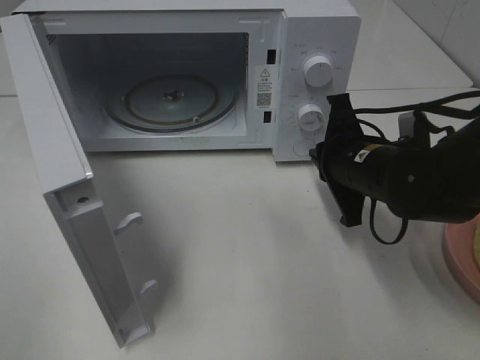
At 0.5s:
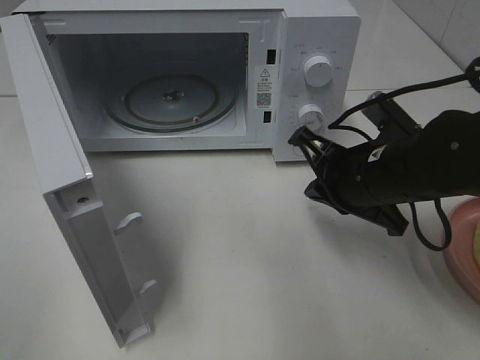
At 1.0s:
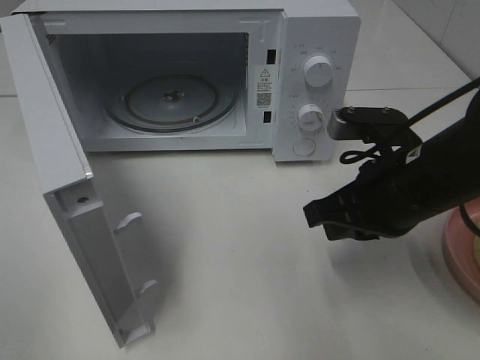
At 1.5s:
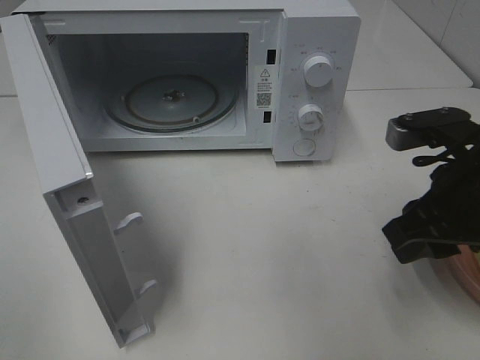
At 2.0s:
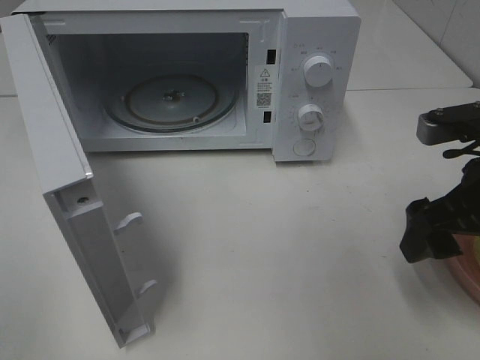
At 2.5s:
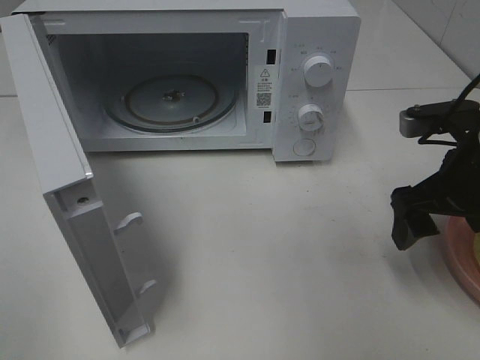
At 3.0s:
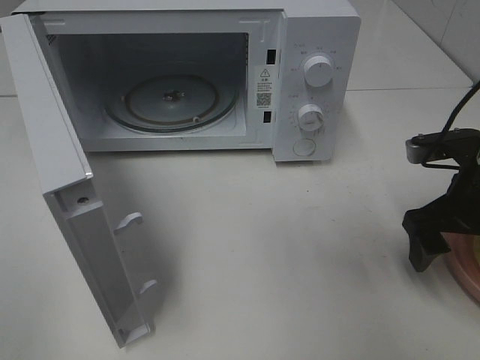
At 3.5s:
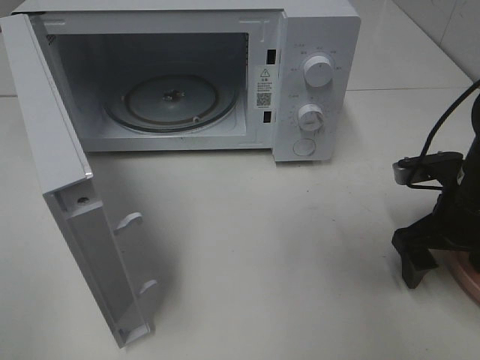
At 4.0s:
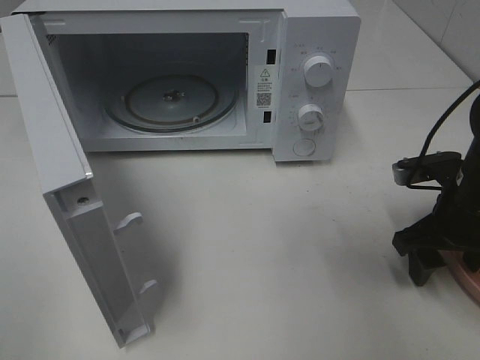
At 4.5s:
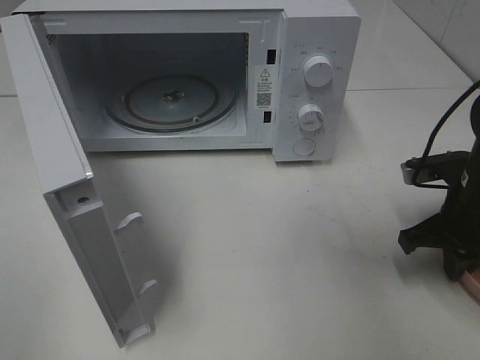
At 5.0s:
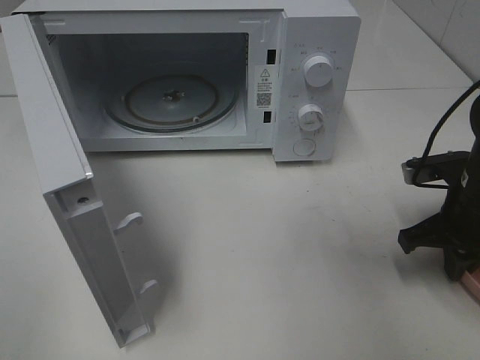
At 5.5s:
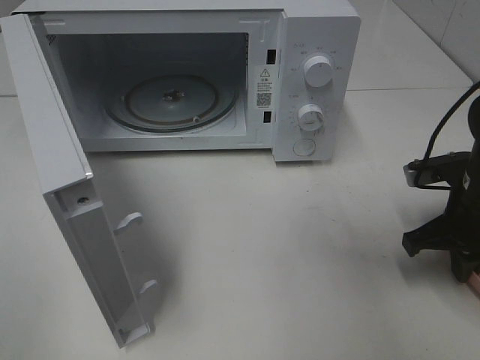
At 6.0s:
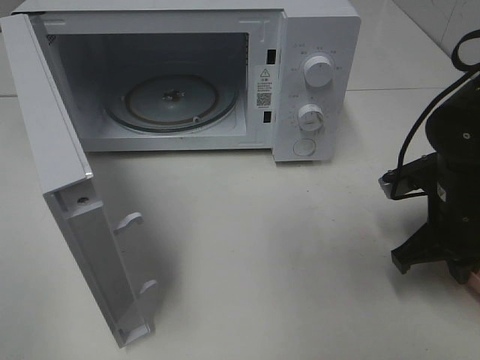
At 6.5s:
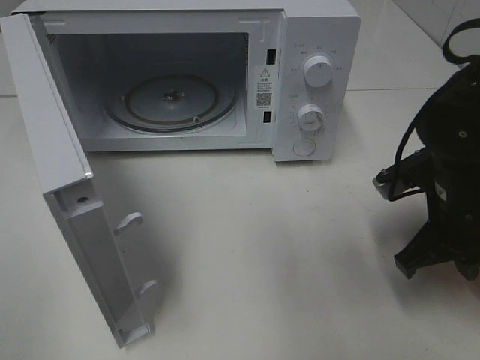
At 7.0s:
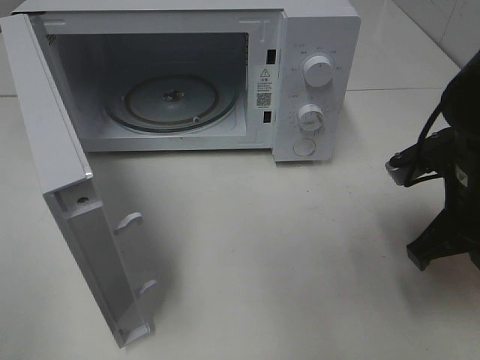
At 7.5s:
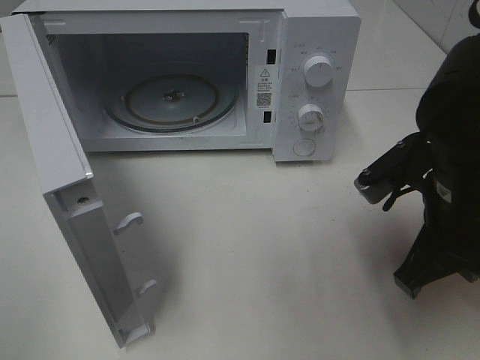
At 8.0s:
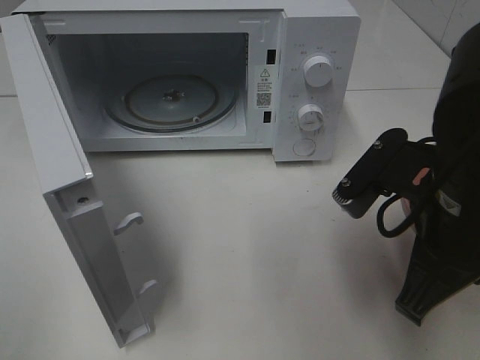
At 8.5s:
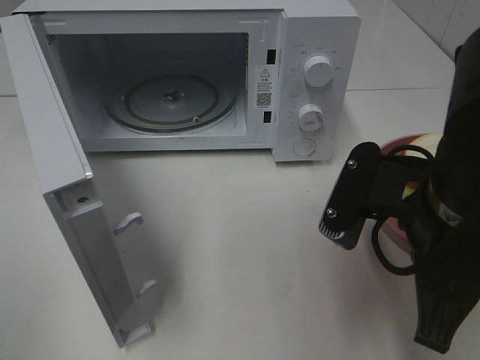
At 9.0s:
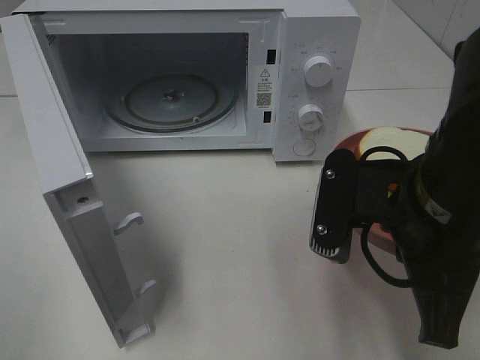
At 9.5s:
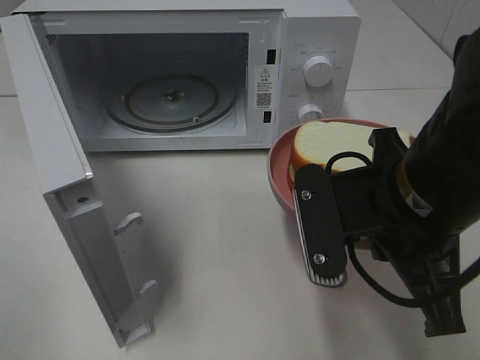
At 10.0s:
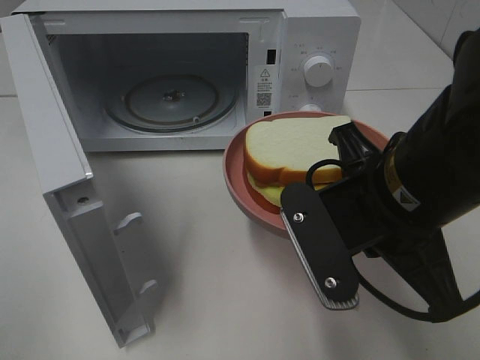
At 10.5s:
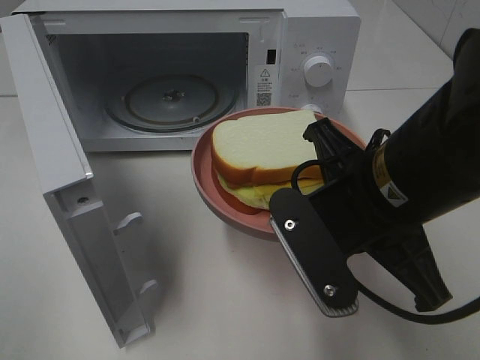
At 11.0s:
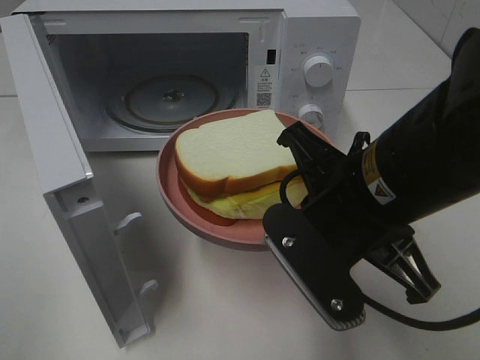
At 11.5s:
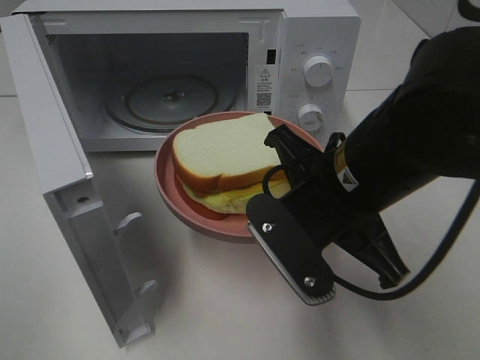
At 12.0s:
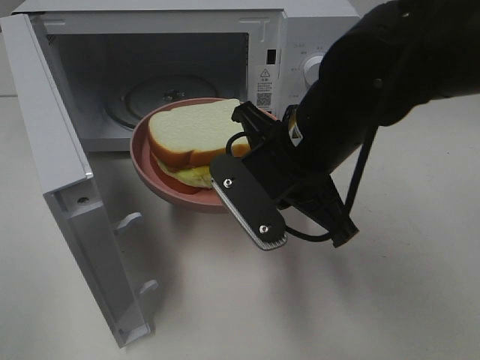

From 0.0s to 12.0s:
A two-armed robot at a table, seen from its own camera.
Task of the whole recording: Heat Sandwich.
Step, from 0.0s to 5.0s: Right hand: grab the plate with the sandwich.
From 0.0s to 2.0s: The right gripper shifts approximately 15 cm to the right, backward and upward, and opens its fingers.
From 2.0s to 4.0s: The right gripper shifts some 10 cm downward and forward.
From 4.0s to 6.0s: The right gripper closes.
From 6.0s to 8.0s: The right gripper travels upward, backward and to the left by about 15 cm.
From 10.0s to 12.0s: The right gripper travels forward and to the left by about 10 cm.

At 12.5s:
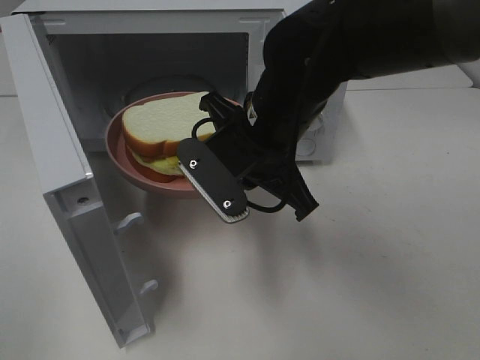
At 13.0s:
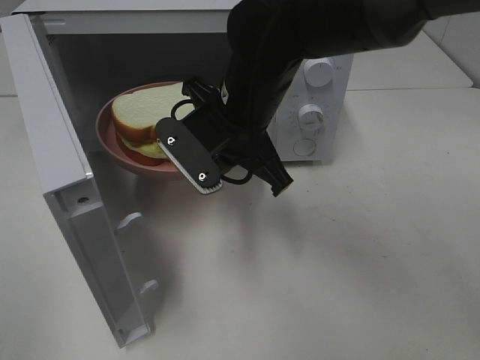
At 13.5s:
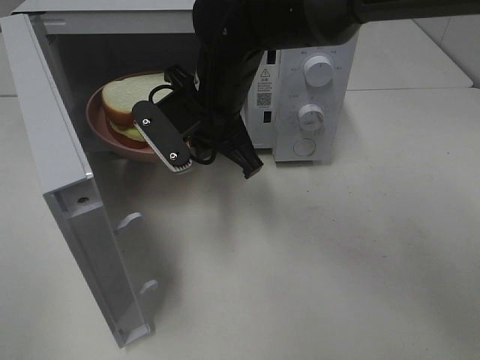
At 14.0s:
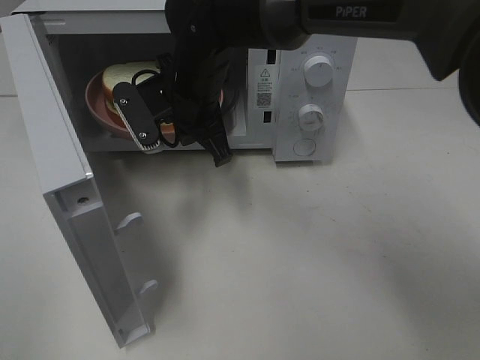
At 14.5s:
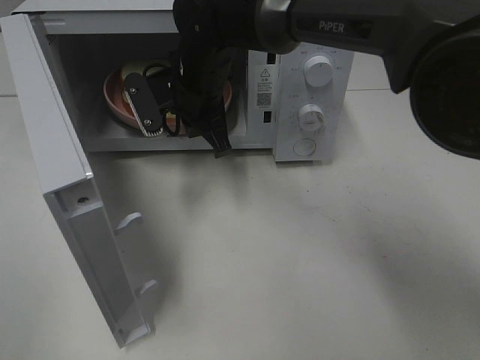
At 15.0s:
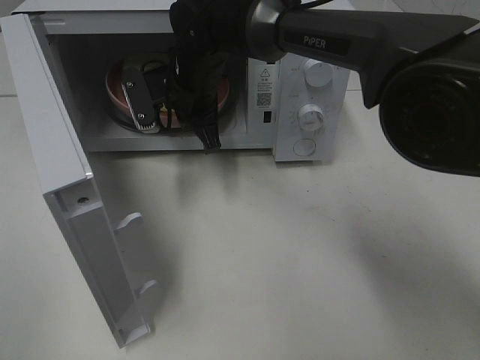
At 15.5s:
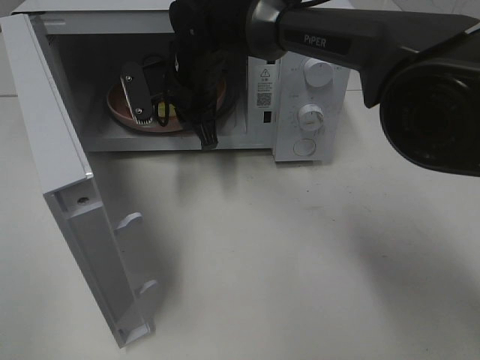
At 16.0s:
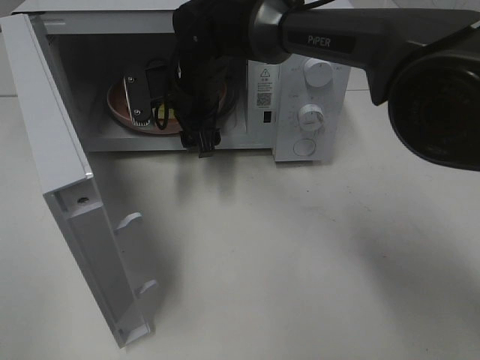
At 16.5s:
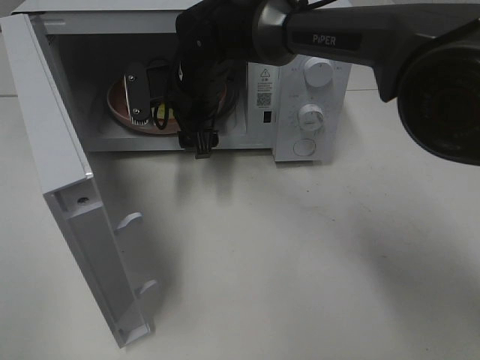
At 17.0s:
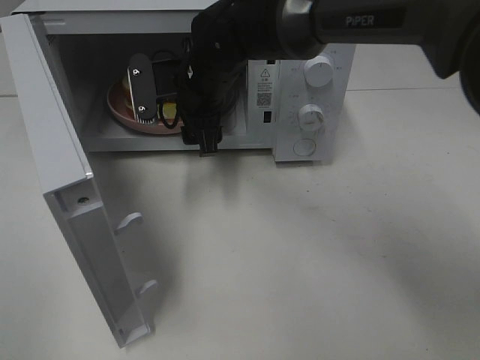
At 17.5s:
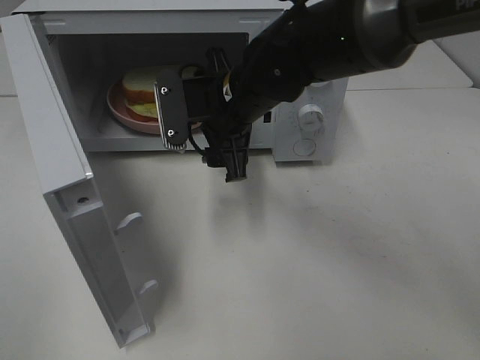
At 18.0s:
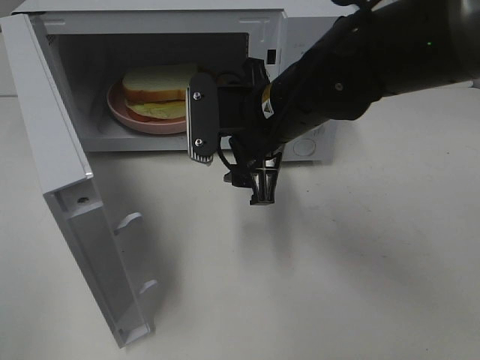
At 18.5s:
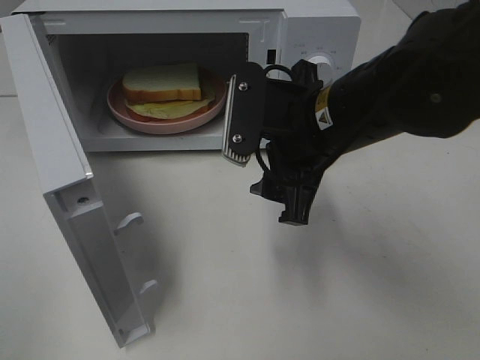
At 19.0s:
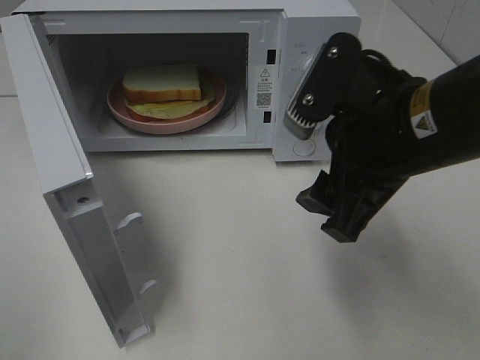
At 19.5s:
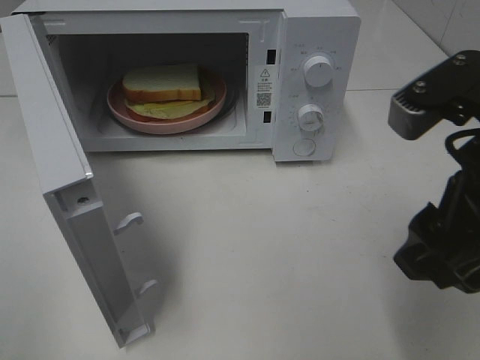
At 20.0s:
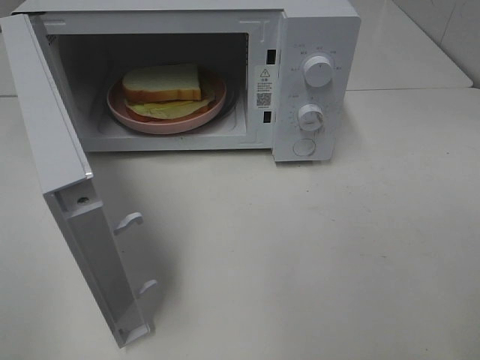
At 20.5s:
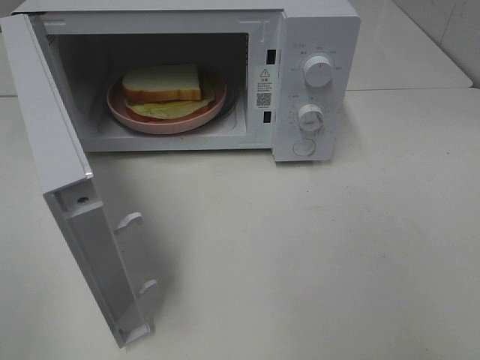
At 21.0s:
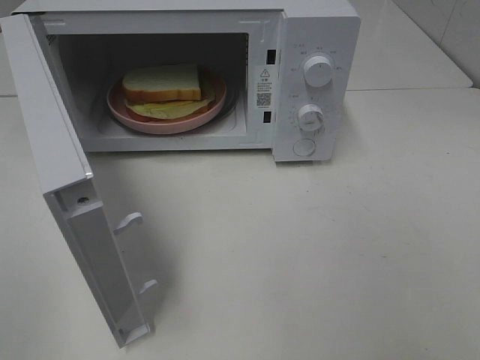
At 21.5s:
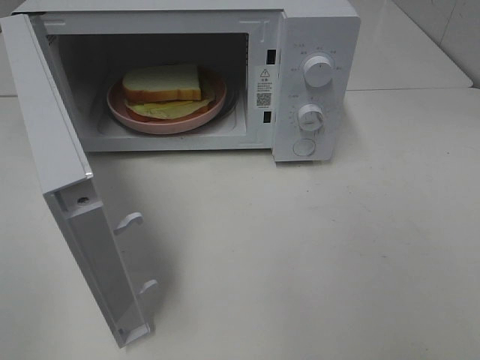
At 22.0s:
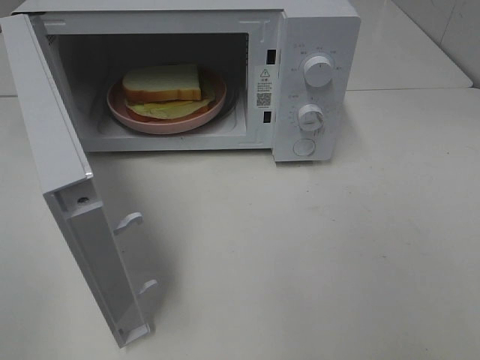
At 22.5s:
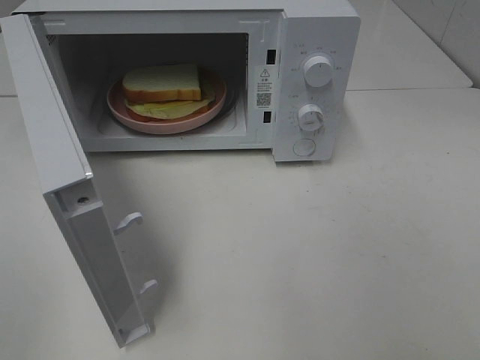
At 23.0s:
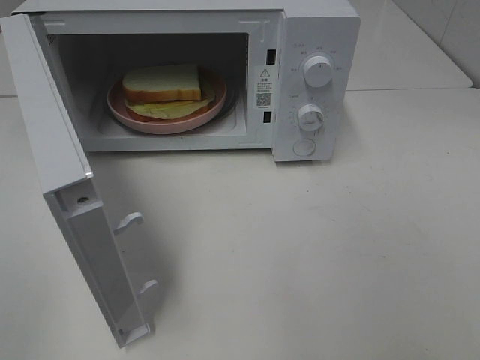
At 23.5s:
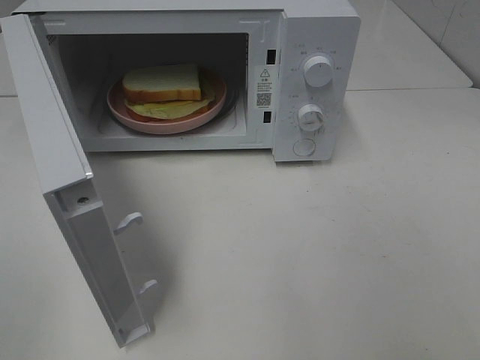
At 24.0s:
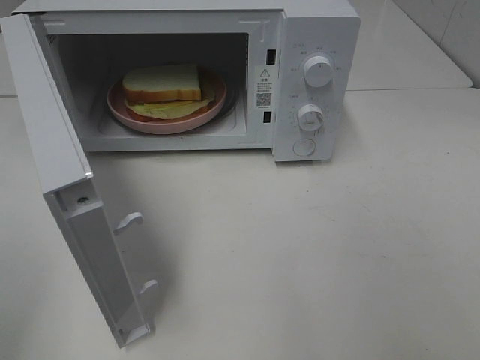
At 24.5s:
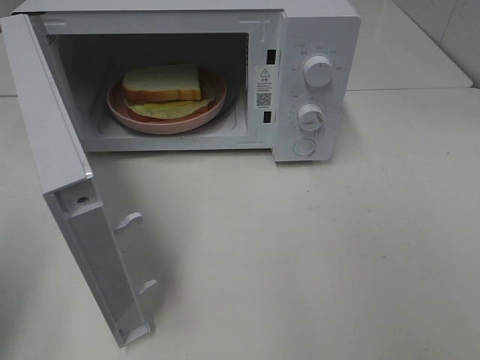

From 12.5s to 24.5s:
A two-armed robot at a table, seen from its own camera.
Task of the whole recording: Heat Sandwich.
Step, from 12.5s to 17.0s: Right hand: place the plate in the microwave.
From 12.5s to 14.5s: The right gripper heads forward and to the left, covering roughly 15 cm.
From 14.5s to 16.5s: The right gripper opens.
From 16.5s to 18.5s: The right gripper shifts about 20 cm backward and to the right.
From 18.5s to 20.5s: The right gripper moves backward, to the right and upward, roughly 30 cm.

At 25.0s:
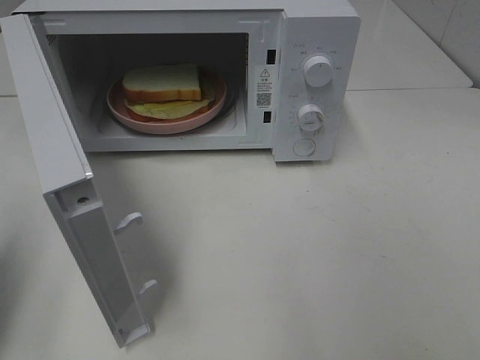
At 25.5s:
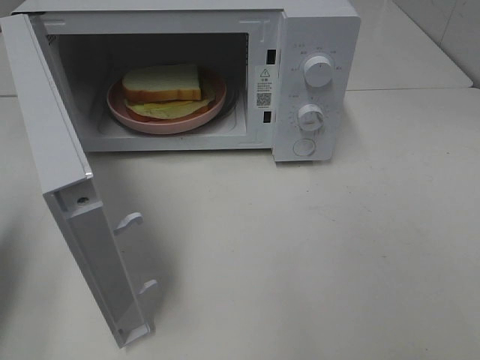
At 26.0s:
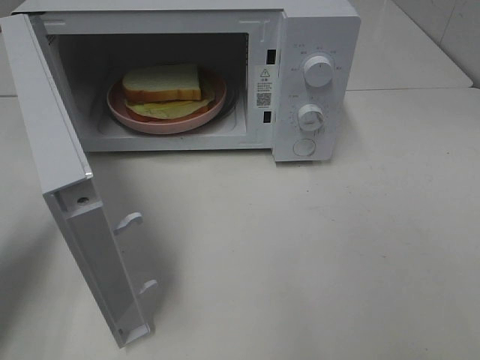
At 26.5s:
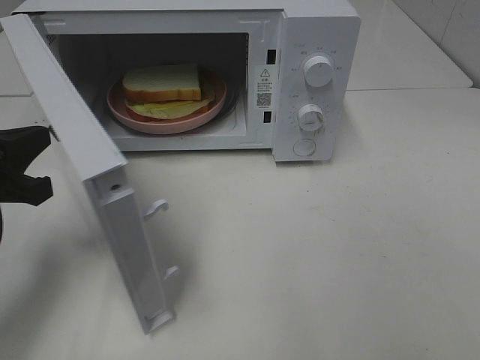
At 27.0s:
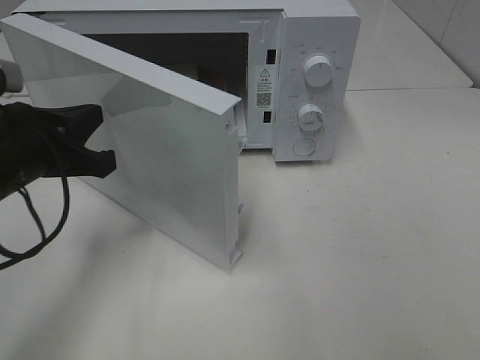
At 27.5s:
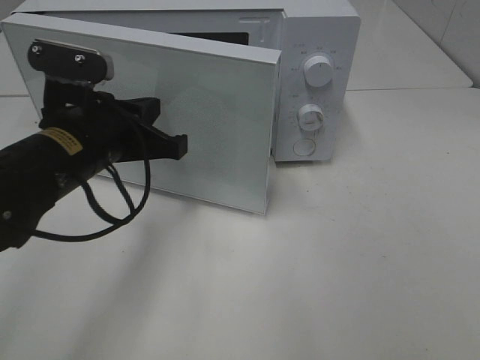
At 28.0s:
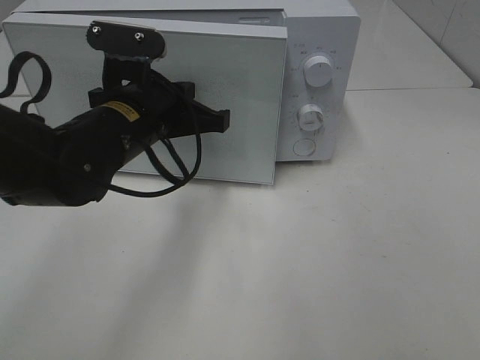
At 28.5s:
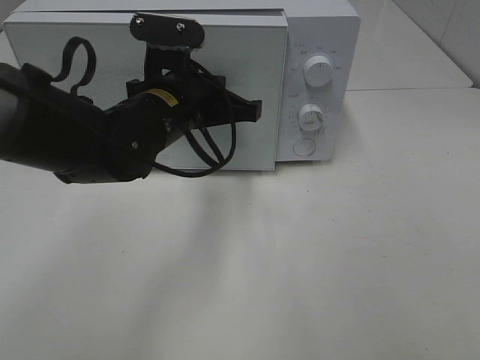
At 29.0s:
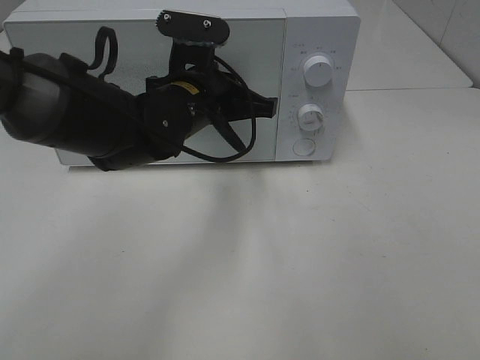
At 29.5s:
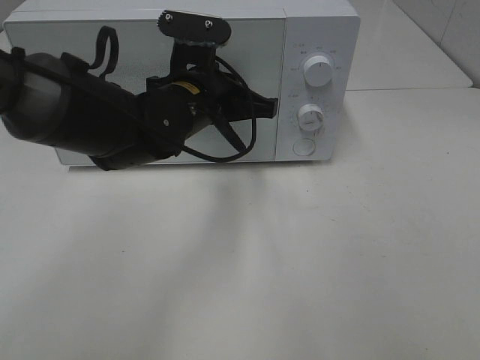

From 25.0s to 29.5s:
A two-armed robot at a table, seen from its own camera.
Task of the whole recording: Heat Sandwich.
From 25.0s to 27.0s: The left gripper heads to the right, forward and downward, covering about 15 cm.
From 27.0s to 29.5s: The left gripper moves to the right and forward, about 20 cm.
